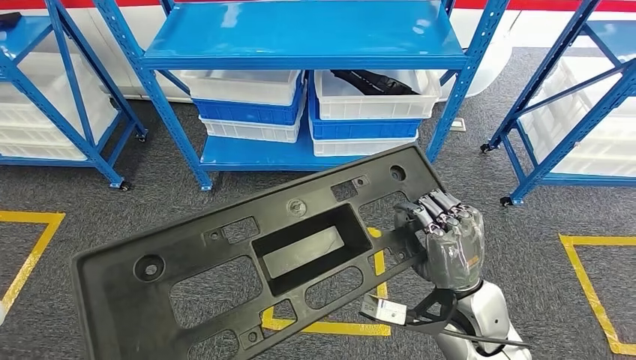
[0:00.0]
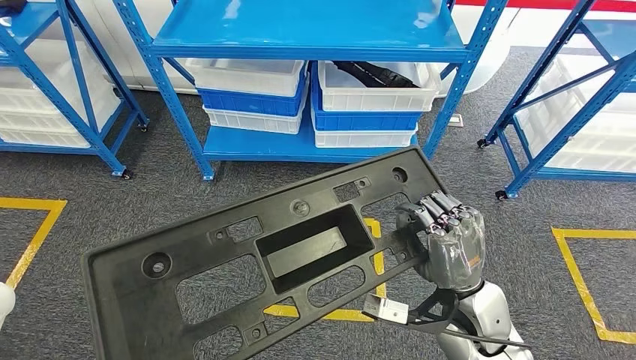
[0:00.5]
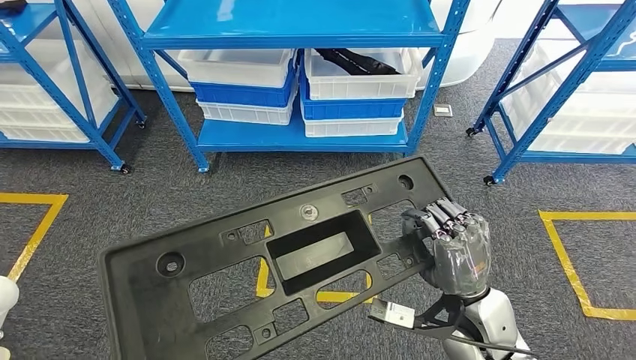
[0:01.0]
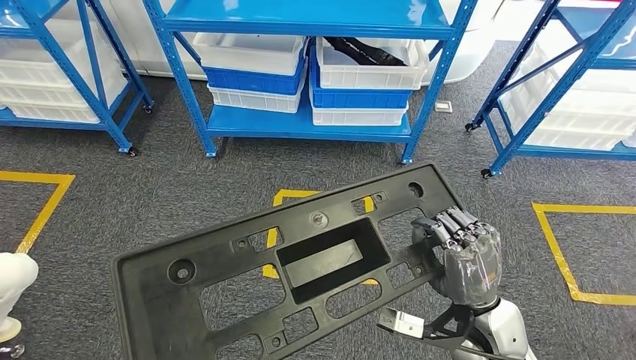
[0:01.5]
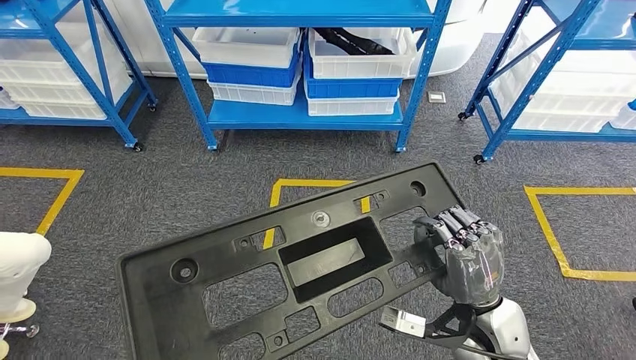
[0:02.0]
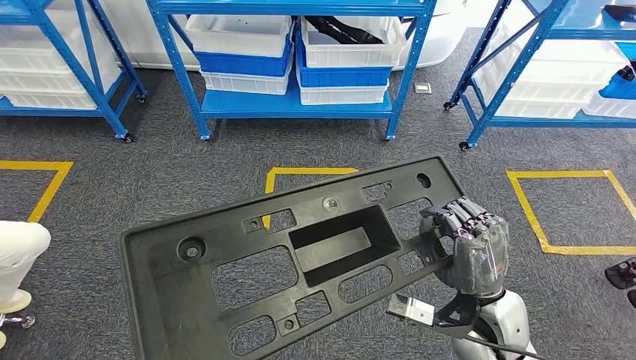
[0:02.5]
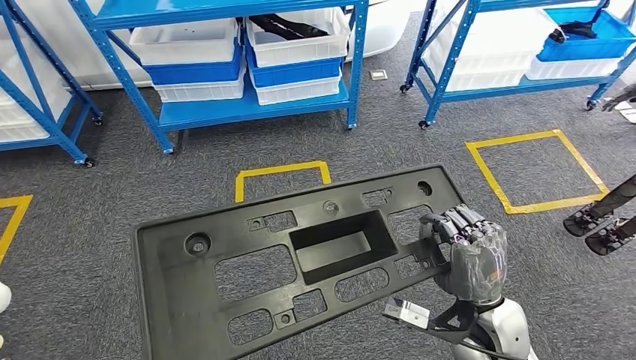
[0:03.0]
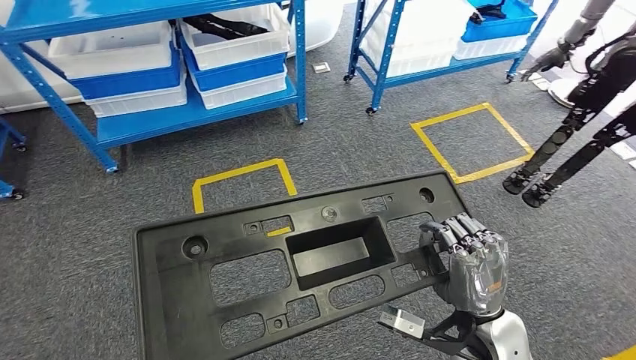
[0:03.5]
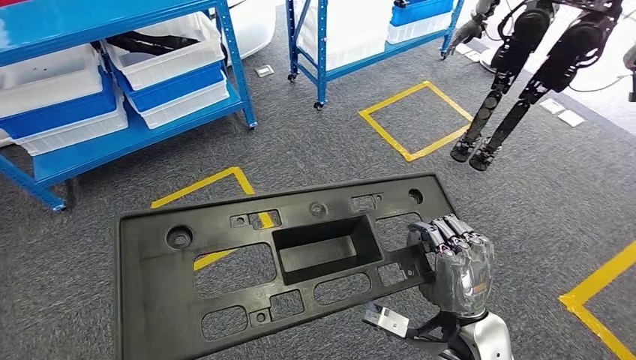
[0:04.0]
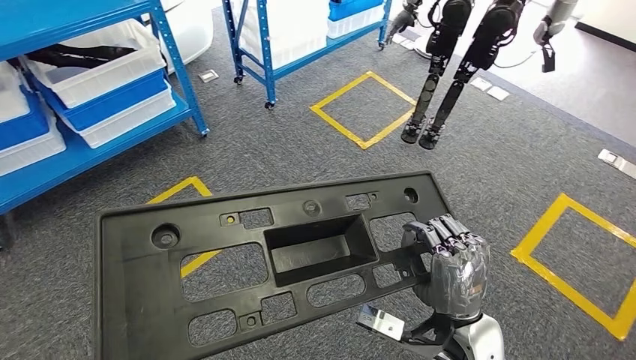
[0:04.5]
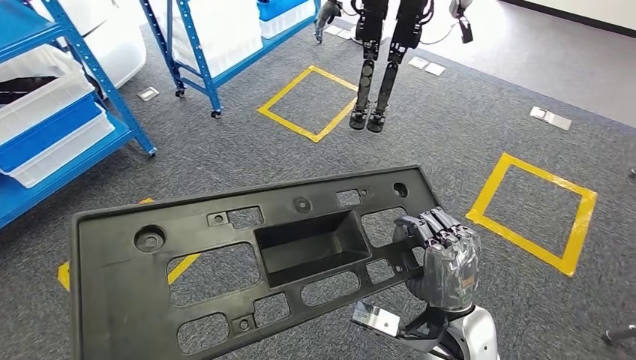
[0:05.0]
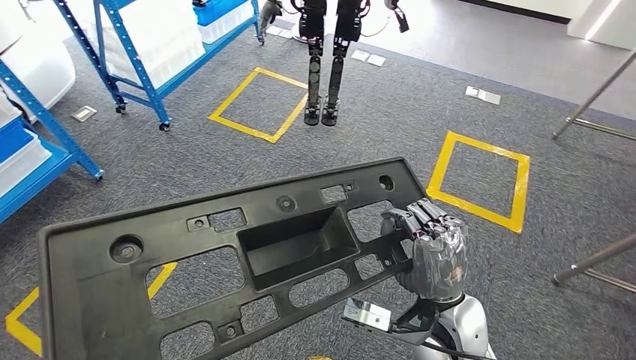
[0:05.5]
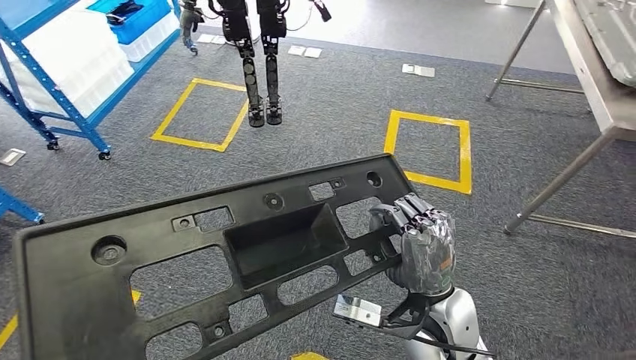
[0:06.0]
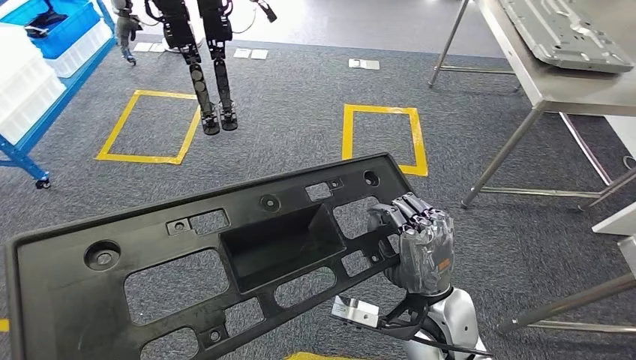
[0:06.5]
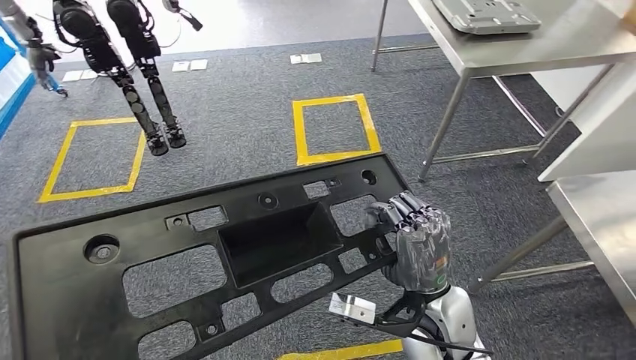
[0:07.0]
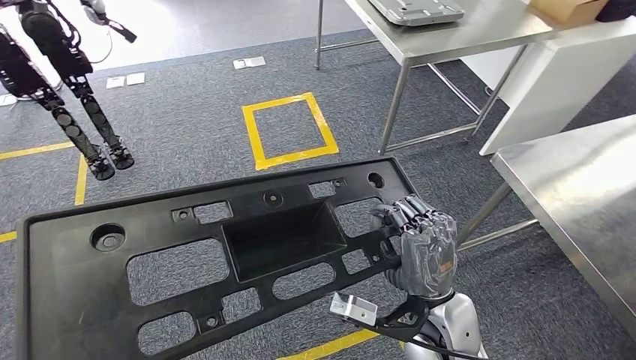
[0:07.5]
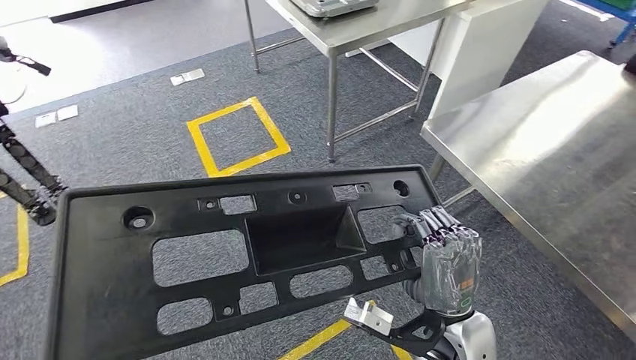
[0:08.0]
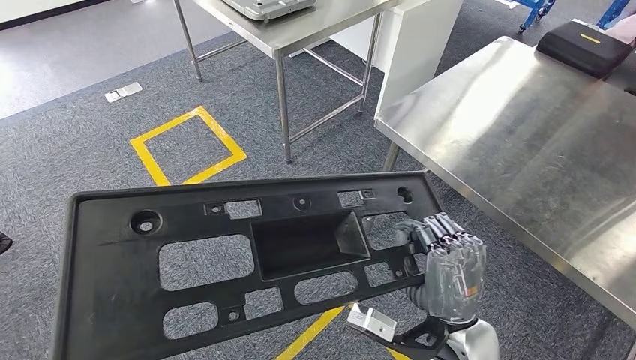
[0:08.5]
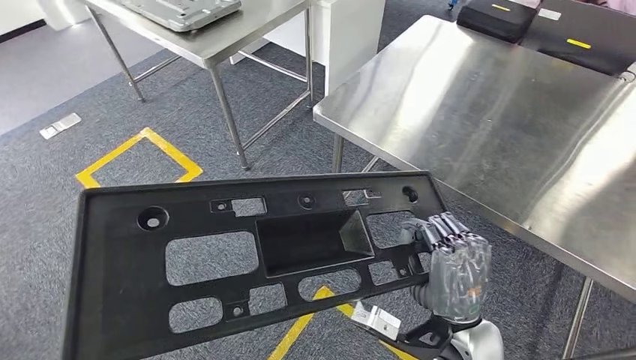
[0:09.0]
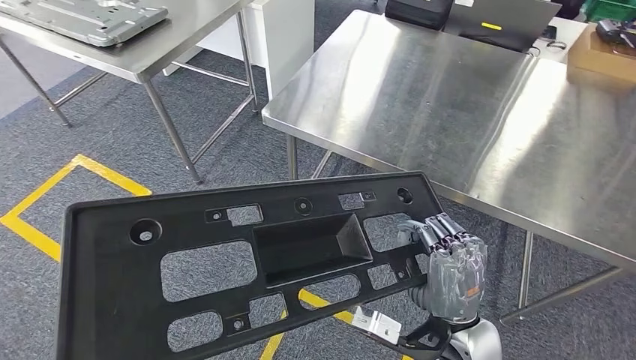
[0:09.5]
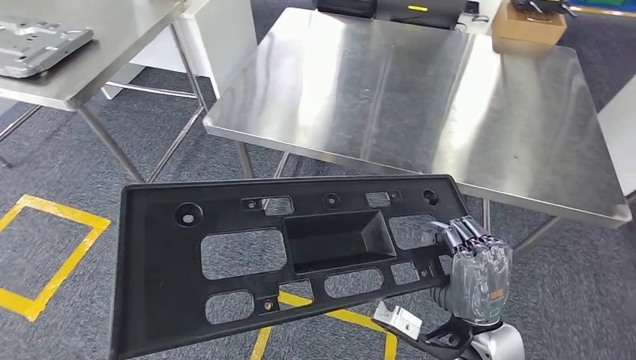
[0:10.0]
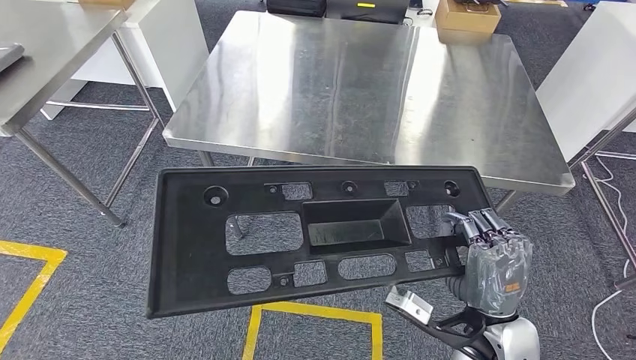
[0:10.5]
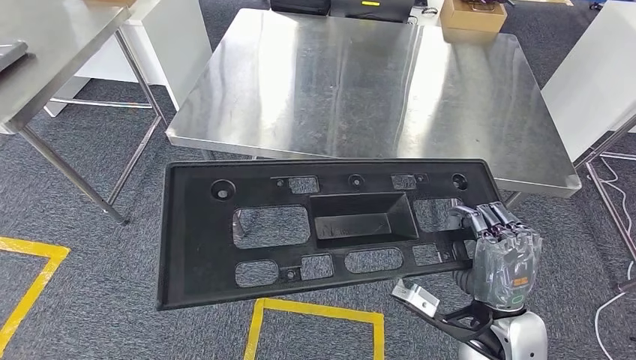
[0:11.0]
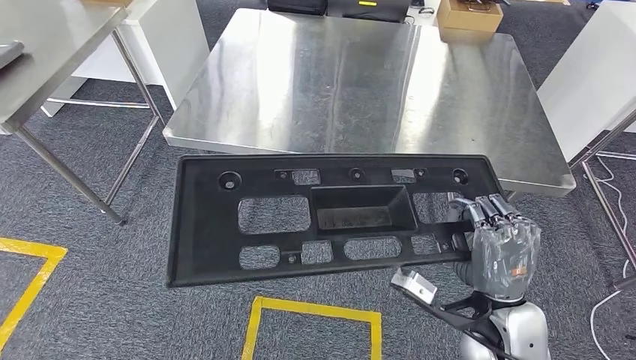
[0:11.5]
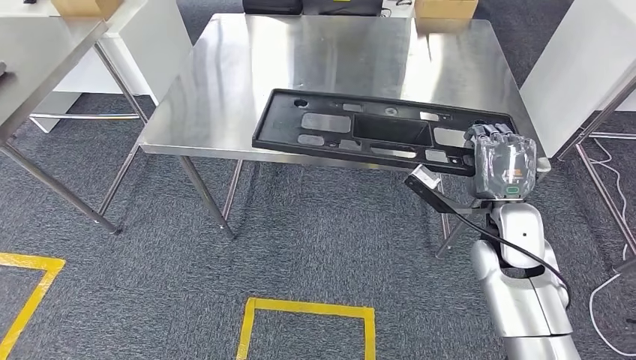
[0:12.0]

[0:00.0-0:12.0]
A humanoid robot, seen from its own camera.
Step, 0:00.0 to 0:11.0: Move the large material to the workbench.

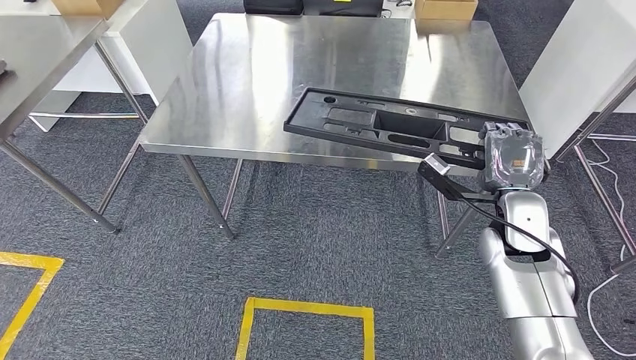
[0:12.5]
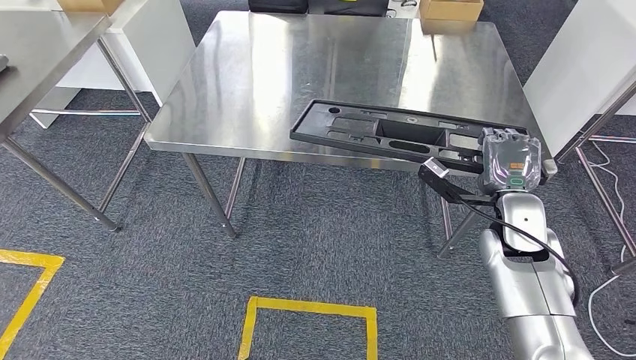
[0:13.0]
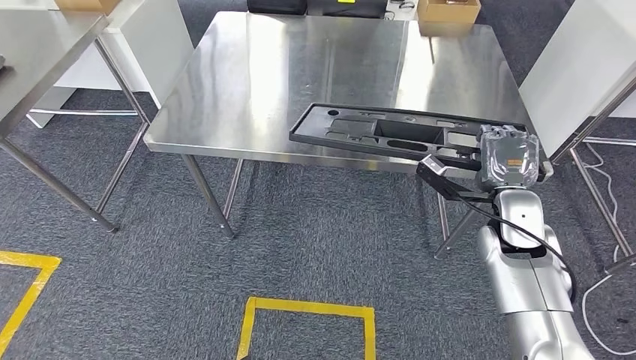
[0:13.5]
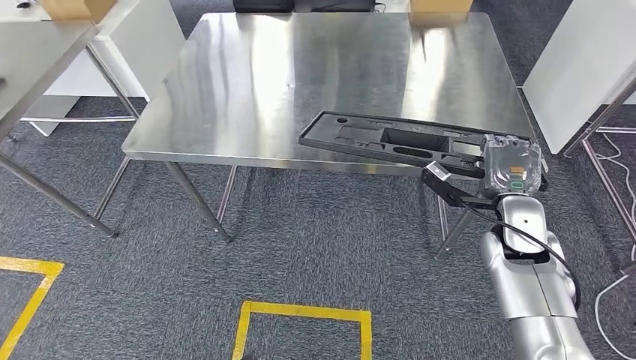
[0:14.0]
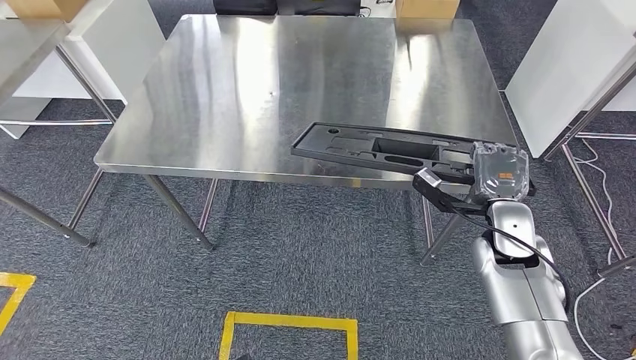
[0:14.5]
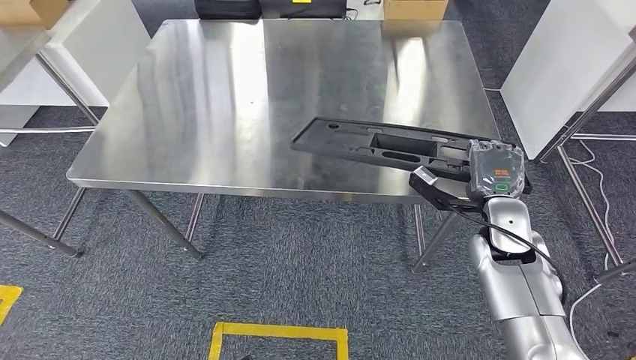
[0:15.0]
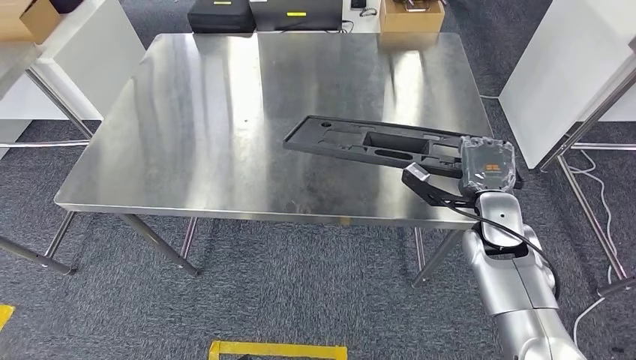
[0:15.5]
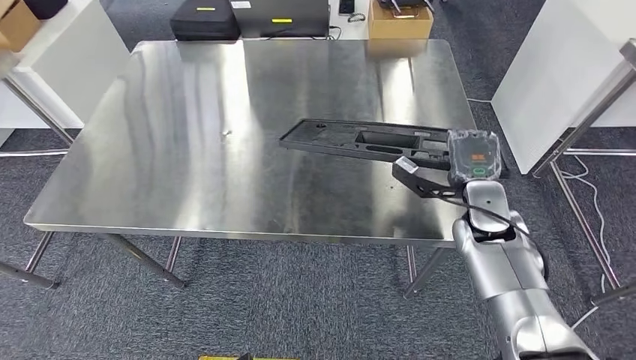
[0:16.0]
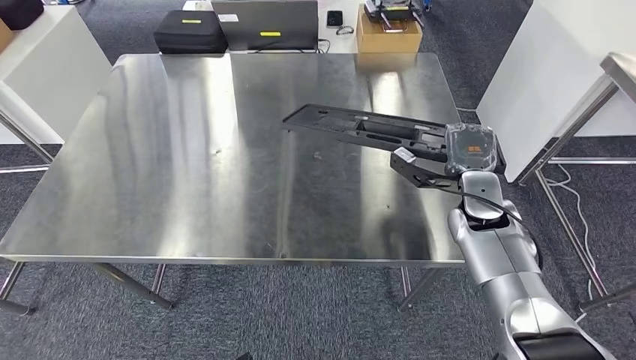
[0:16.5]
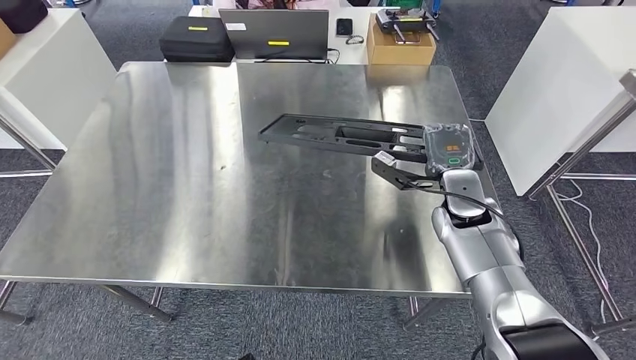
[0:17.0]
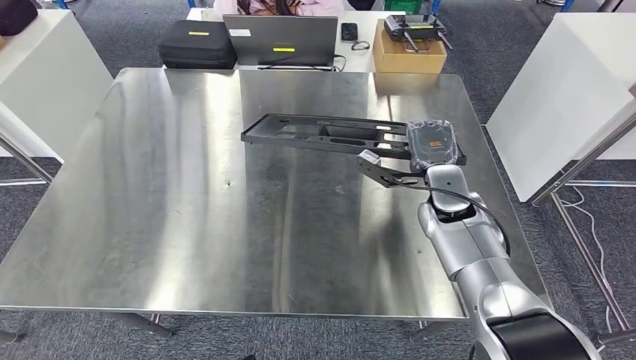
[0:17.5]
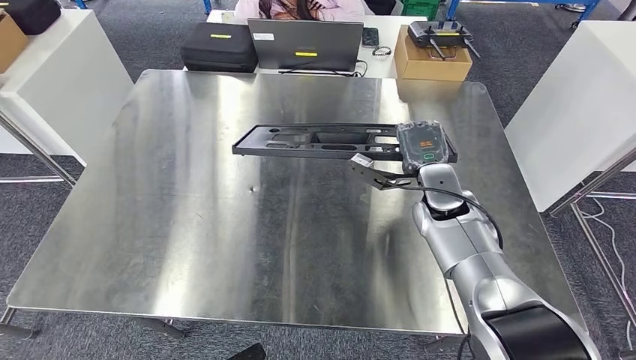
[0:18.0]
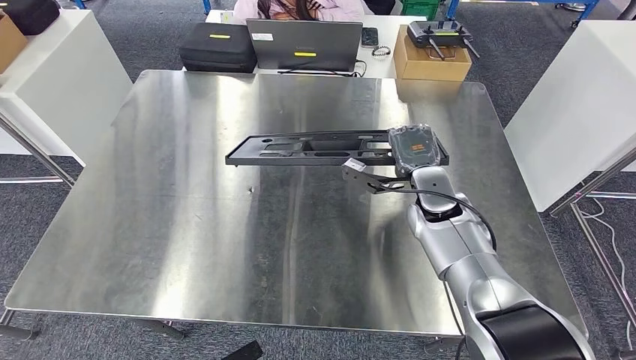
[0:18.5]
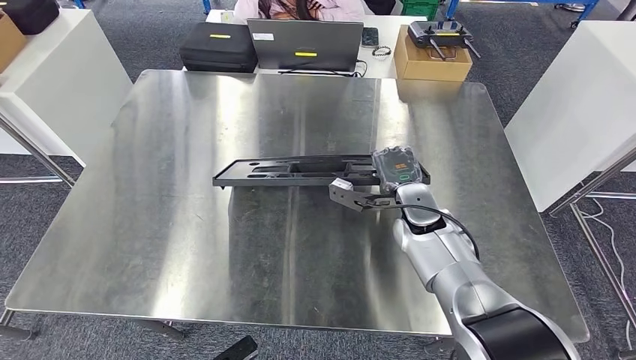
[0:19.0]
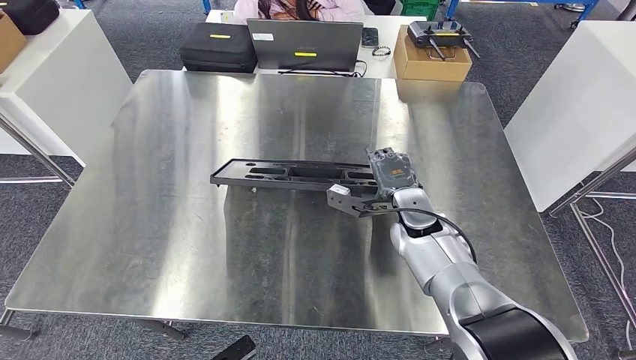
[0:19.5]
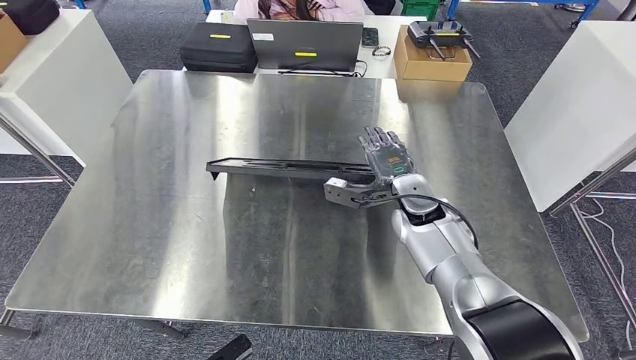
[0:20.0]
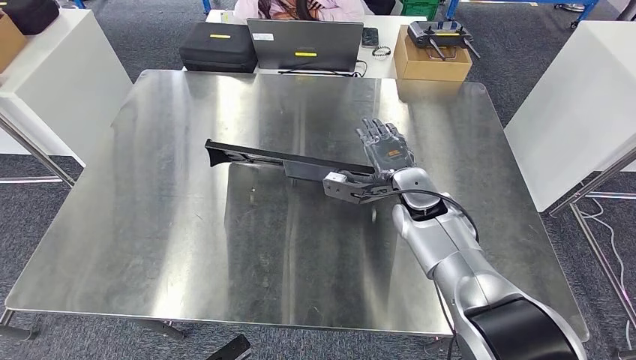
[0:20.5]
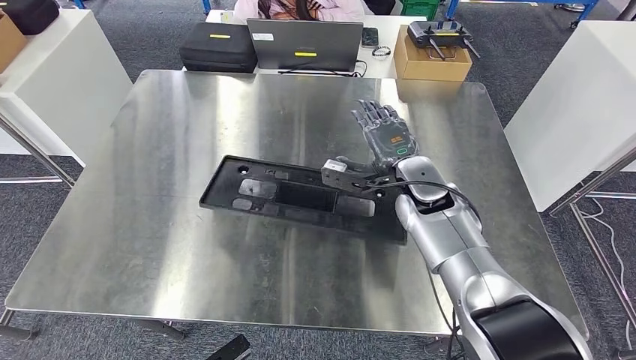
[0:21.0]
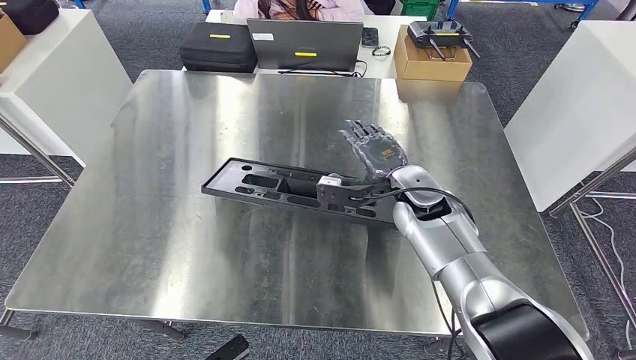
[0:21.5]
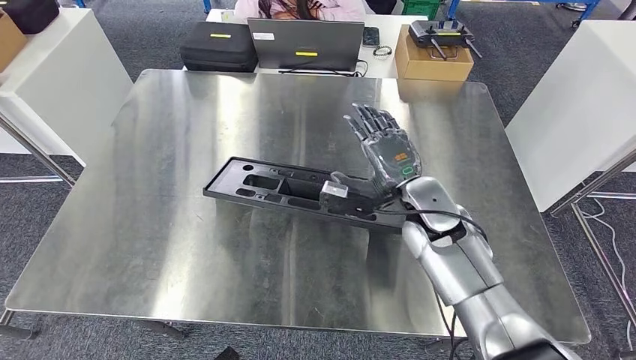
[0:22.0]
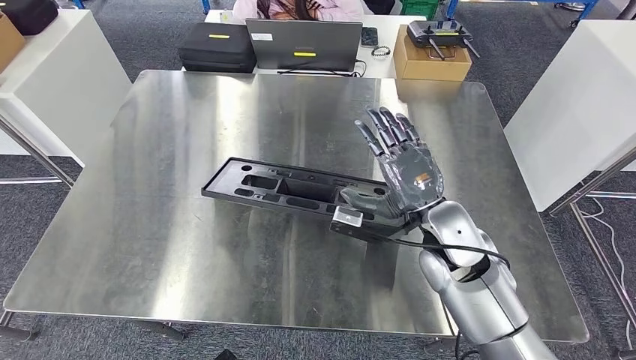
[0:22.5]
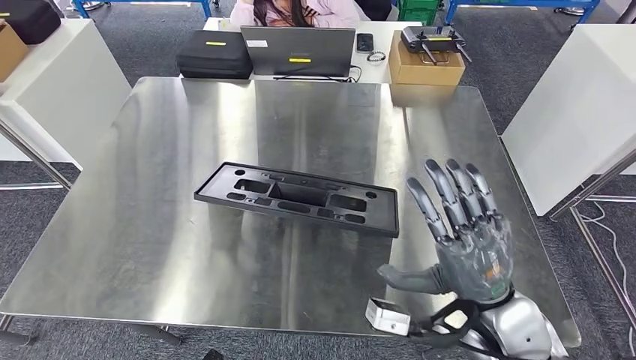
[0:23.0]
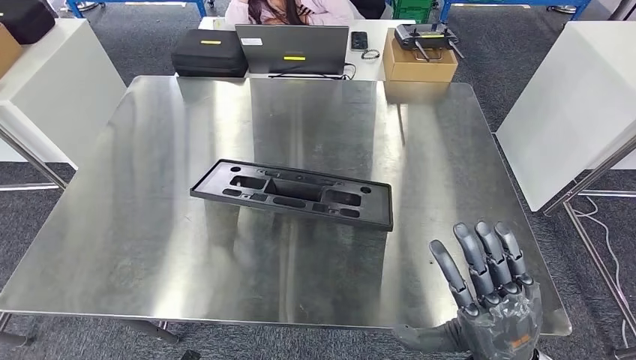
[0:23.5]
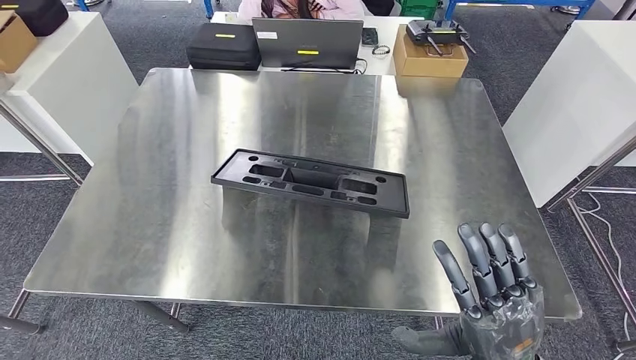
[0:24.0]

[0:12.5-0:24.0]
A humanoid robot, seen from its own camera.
0:18.5 to 0:20.0: There are only small adjustments of the hands.
0:20.0 to 0:22.0: The right hand moves about 5 cm.
